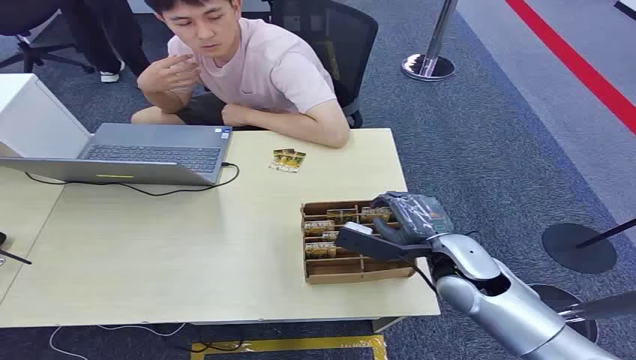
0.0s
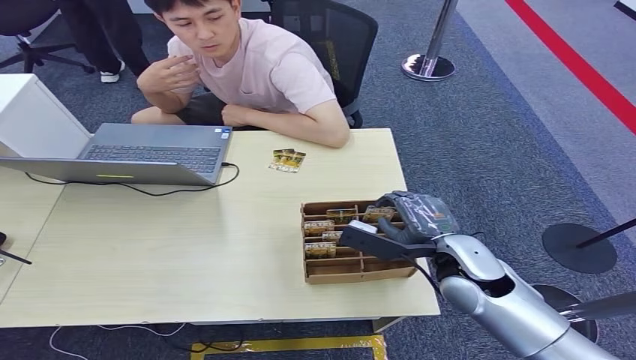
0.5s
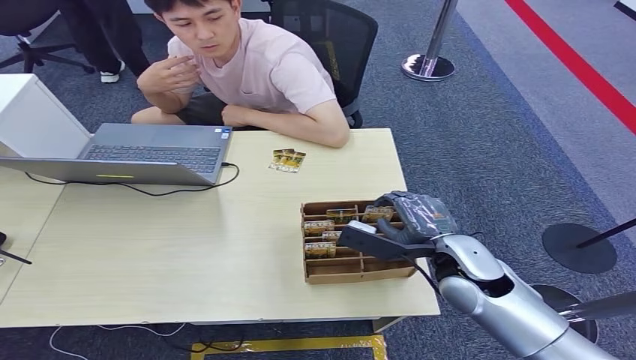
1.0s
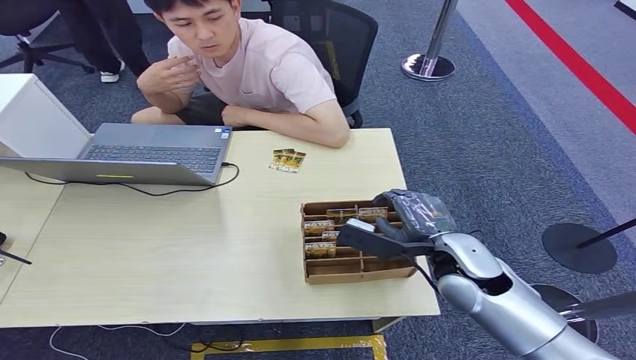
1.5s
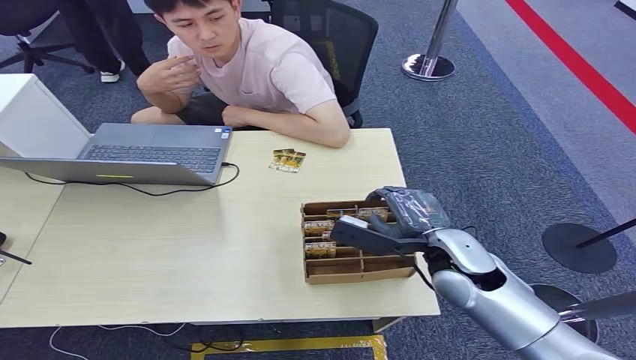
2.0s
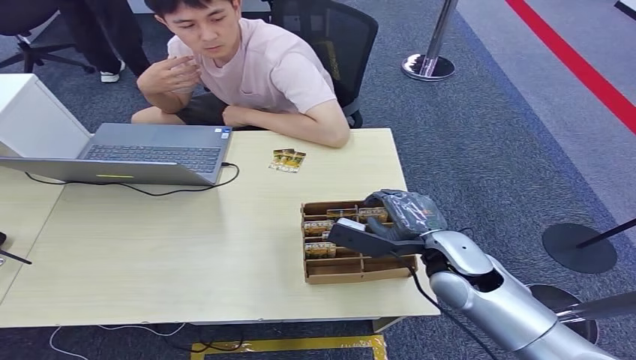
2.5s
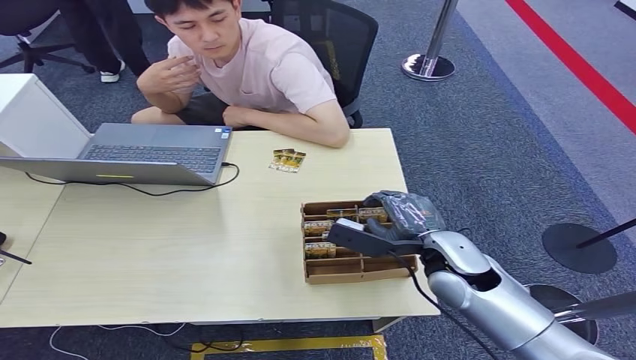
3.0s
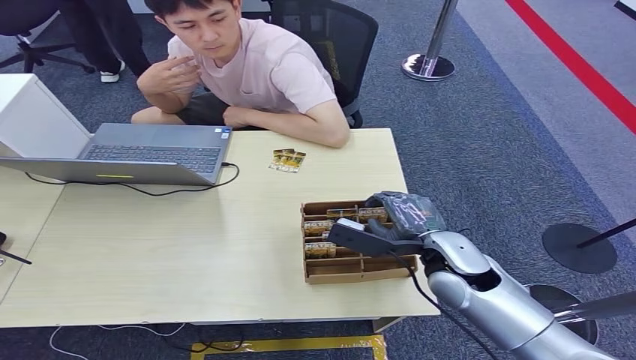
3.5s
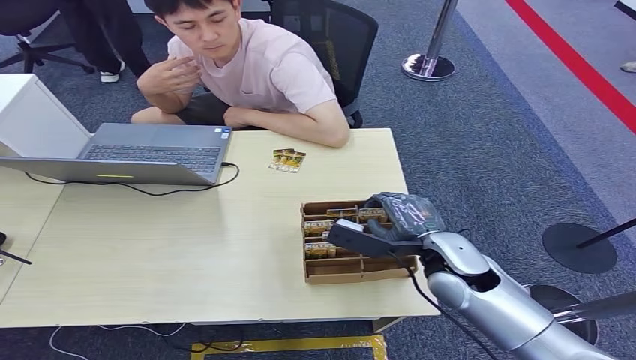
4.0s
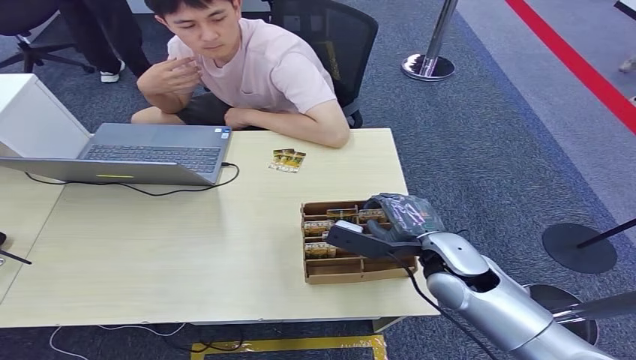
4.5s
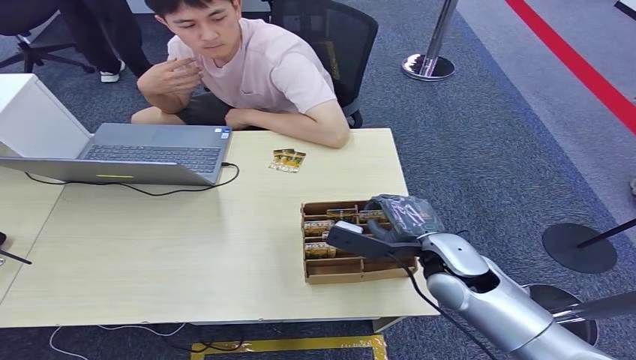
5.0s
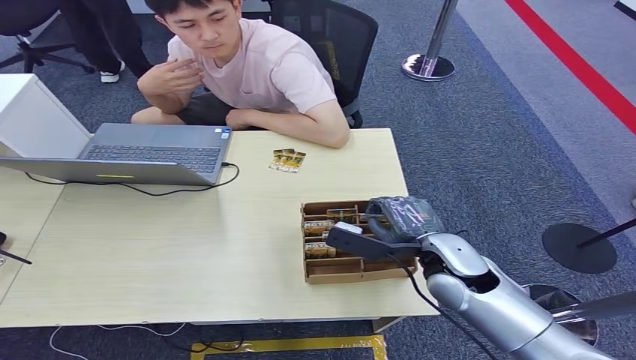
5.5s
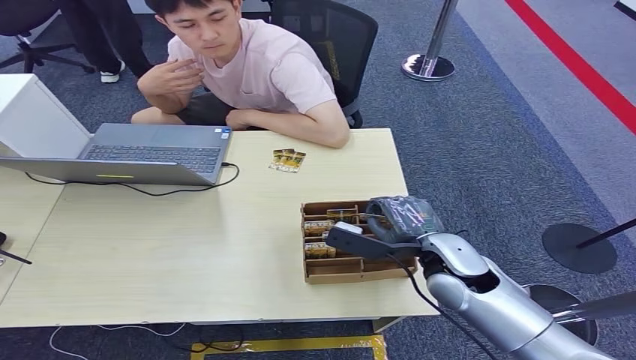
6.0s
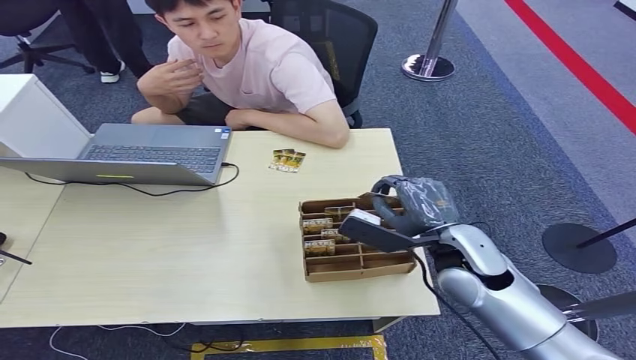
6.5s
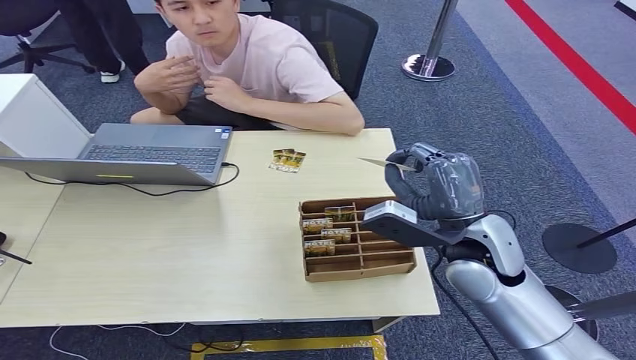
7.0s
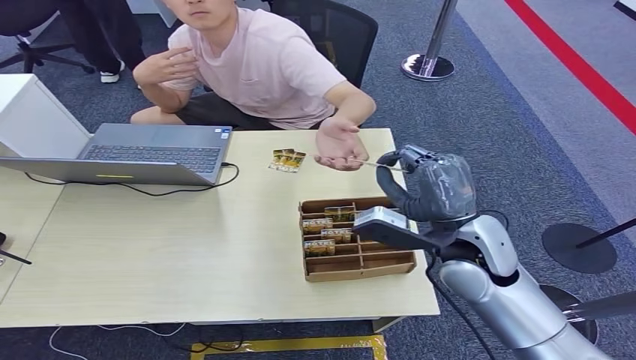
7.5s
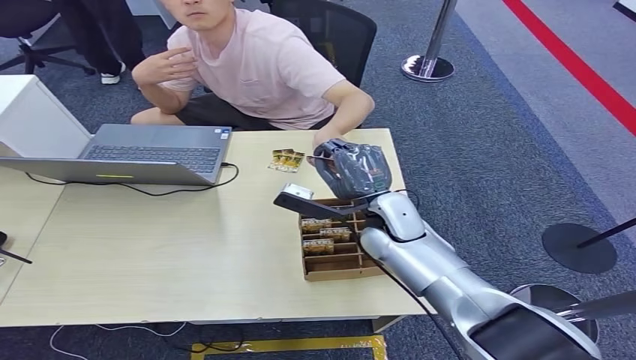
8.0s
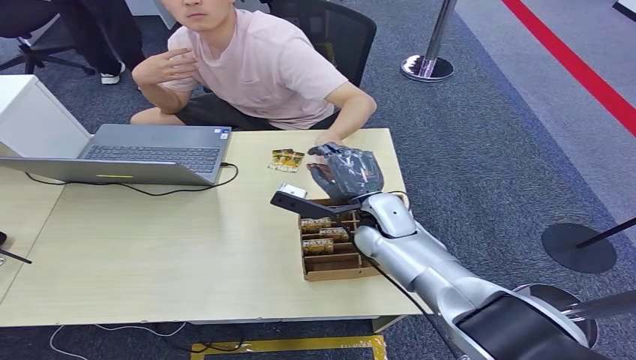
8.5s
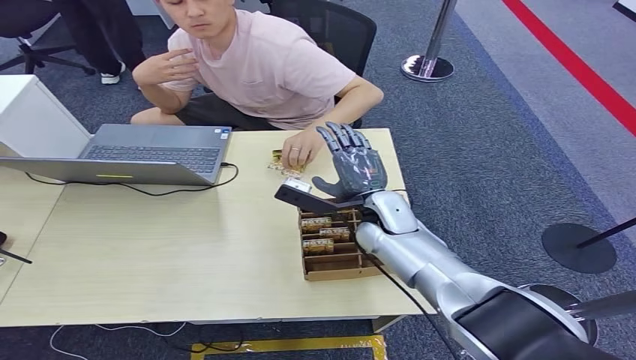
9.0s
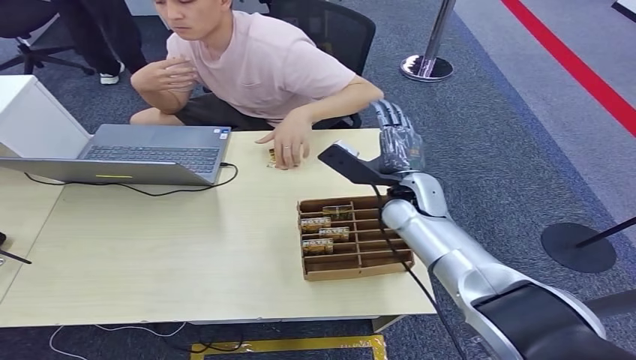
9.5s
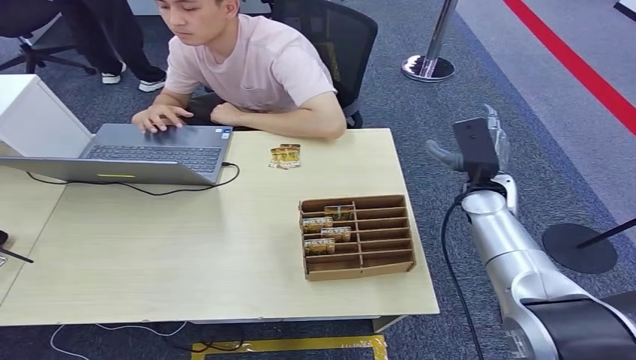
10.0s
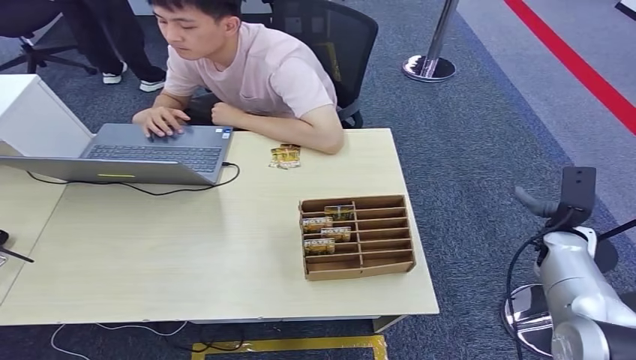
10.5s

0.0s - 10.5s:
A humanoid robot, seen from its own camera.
Step, 0.0s - 6.5s: Pick up the key card from the card box.
Step, 7.0s - 10.0s: Hand the key card to the target.
2.0s - 4.0s: Both hands stay about where they are.
4.0s - 6.5s: There are only small adjustments of the hands.
6.5s - 8.5s: The right hand heads forward and to the left, covering some 15 cm.
